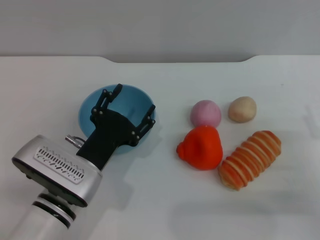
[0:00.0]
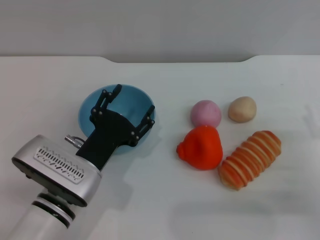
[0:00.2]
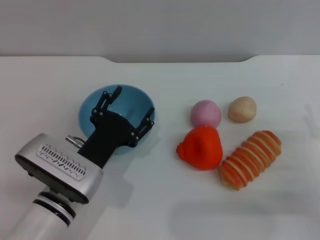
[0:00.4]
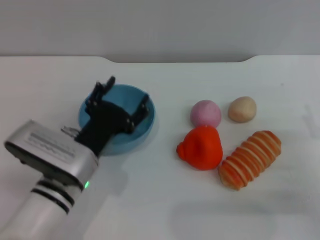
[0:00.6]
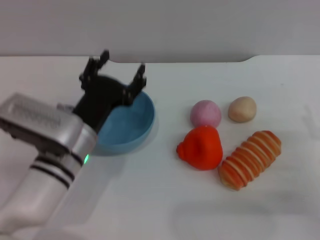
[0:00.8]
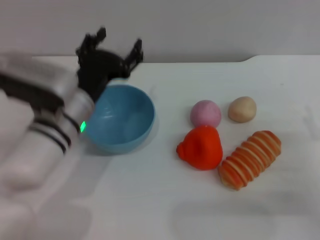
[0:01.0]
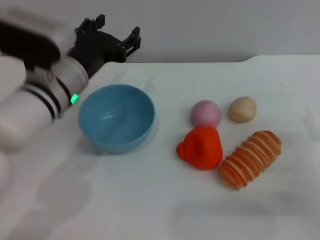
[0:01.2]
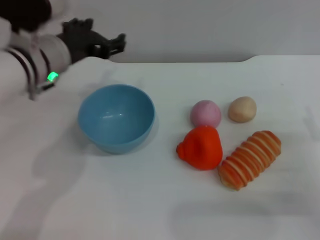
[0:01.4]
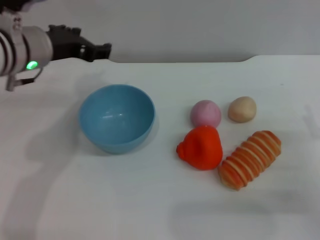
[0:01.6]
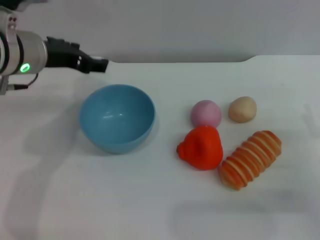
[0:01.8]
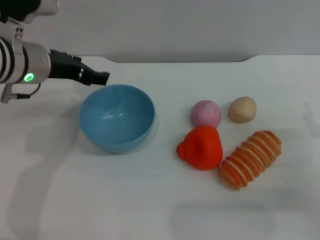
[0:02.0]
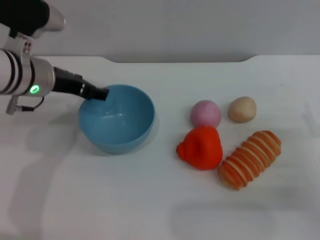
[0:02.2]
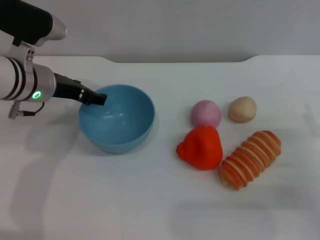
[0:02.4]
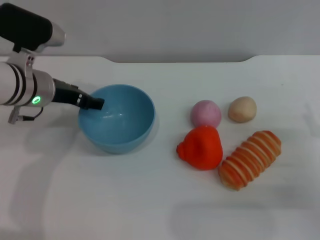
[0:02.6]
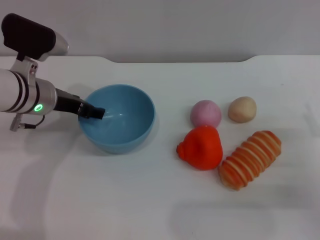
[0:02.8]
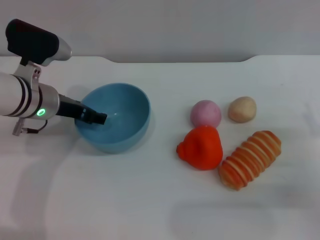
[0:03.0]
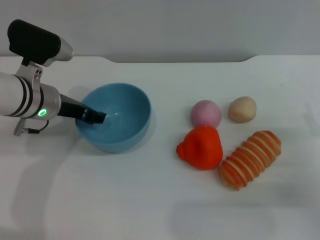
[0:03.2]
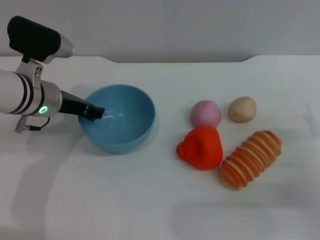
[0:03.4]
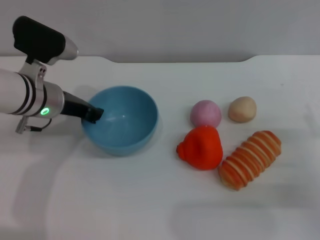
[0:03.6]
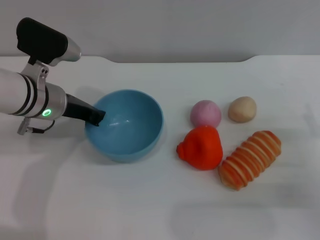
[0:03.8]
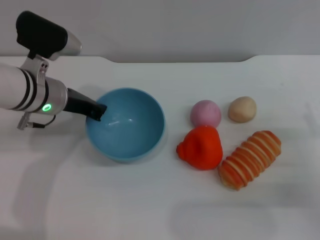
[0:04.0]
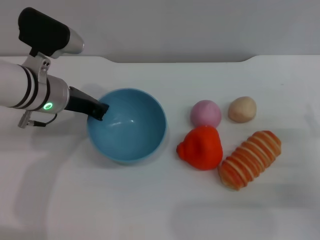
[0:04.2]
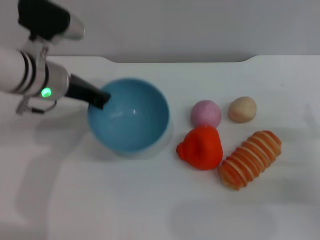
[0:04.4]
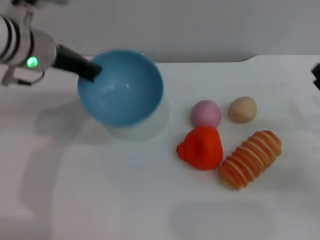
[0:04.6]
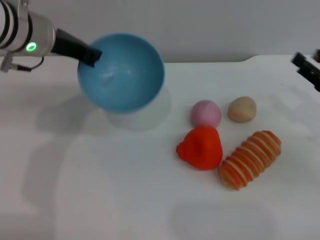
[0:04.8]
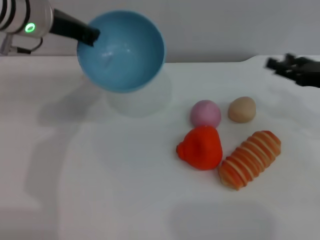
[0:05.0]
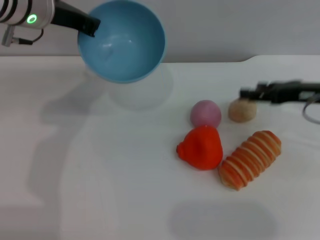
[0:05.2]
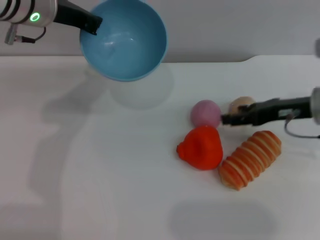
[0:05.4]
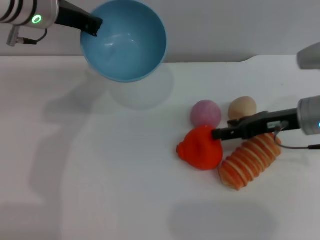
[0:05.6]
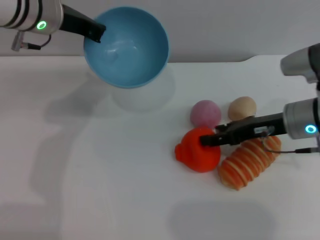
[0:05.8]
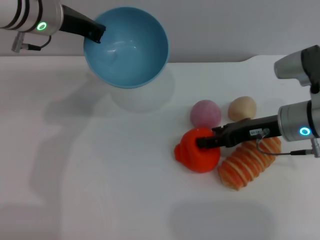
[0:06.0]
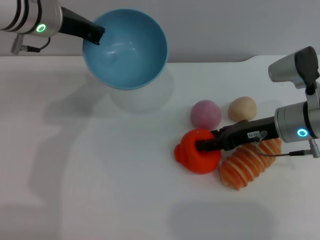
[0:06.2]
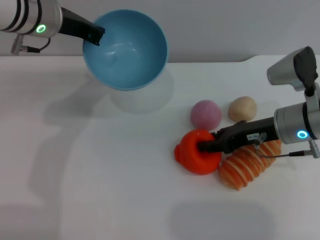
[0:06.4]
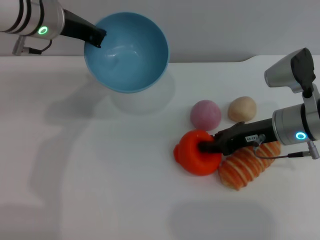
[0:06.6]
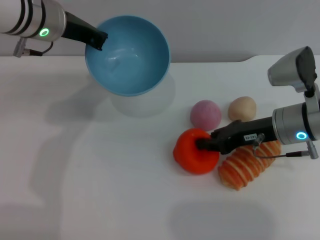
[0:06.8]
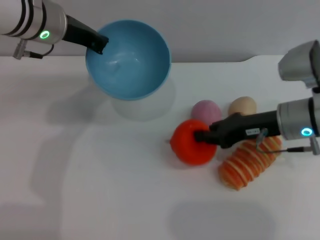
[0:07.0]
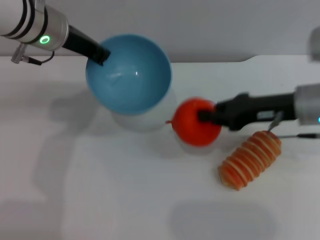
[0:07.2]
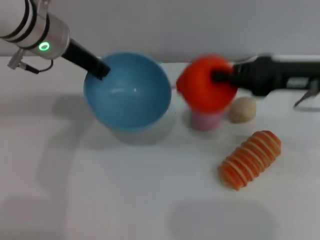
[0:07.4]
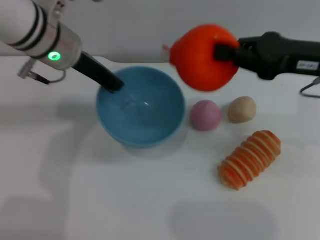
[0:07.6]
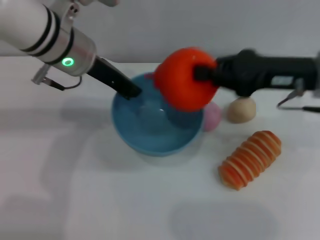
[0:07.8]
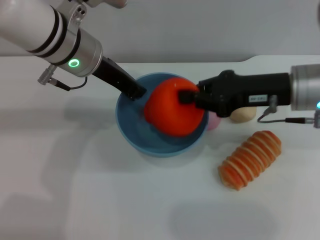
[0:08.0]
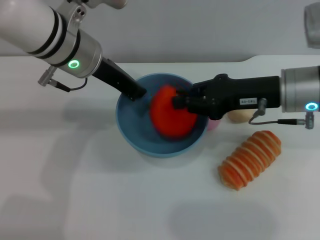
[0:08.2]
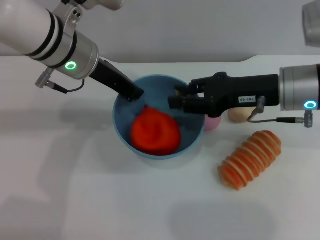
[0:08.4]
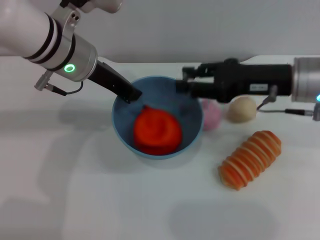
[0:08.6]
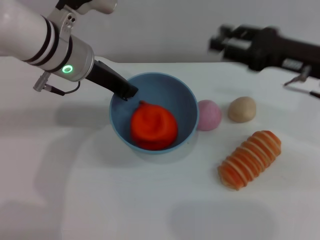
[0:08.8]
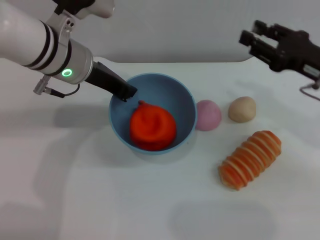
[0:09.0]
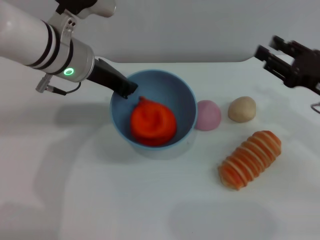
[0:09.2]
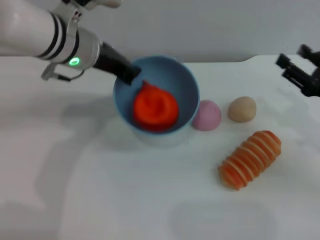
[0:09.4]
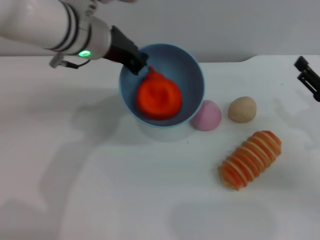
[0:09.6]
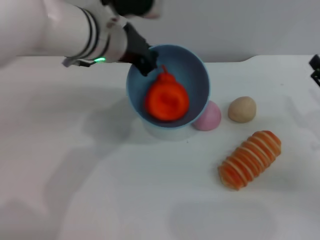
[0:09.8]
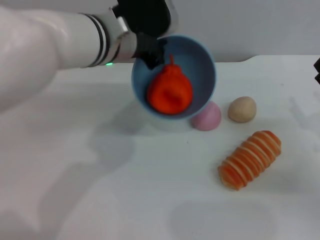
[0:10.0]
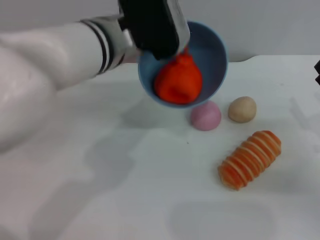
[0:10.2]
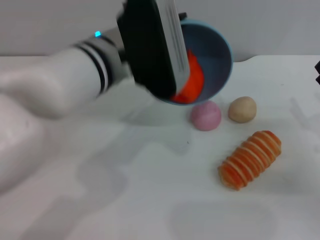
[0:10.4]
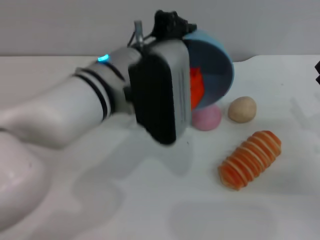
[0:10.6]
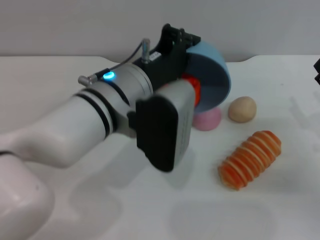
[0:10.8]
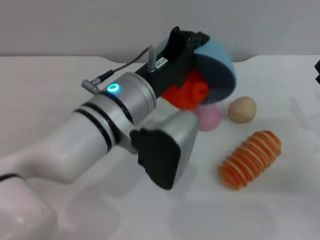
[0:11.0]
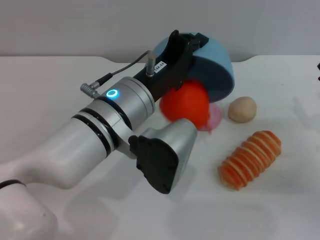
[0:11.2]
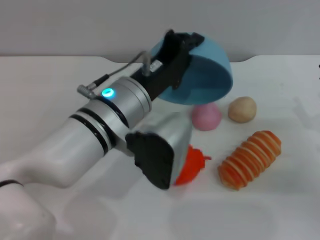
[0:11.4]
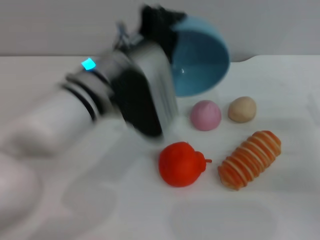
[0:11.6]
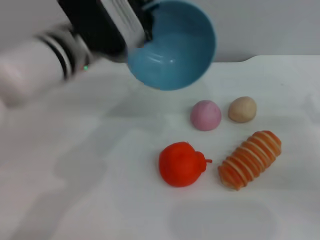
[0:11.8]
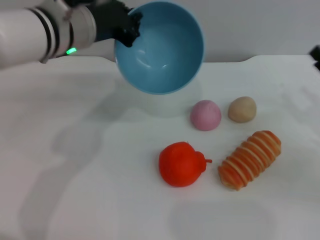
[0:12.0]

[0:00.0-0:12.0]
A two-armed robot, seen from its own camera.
Task of the whole recording: put the orange into the blue bowl and pour it out repeatedly.
Step, 0:00.0 to 0:04.6: Pick up the bowl with the left gripper.
Step, 0:04.8 to 0:06.8: Pick up the orange with the right gripper.
Step, 0:07.0 to 0:08.6: Place the orange into the bowl.
Step, 0:08.8 to 0:11.8: Pour the orange out of the bowl.
0:00.0 to 0:01.6: The left gripper moves upward and forward, some 20 cm.
0:01.6 to 0:03.0: The left gripper shifts approximately 10 cm downward.
0:03.0 to 0:04.4: The left gripper closes up.
0:04.4 to 0:06.0: The right gripper is displaced forward, to the left and upward by roughly 15 cm, while the left gripper moves upward, some 5 cm.
0:06.0 to 0:07.6: The right gripper heads upward, covering approximately 10 cm, and closes its fingers.
0:07.6 to 0:09.0: The right gripper is displaced downward by roughly 5 cm, goes to the left and returns, some 5 cm each way, and opens its fingers.
0:09.0 to 0:10.4: The left gripper is displaced to the right and backward by about 10 cm, while the right gripper goes roughly 10 cm downward, backward and to the right, and opens up.
0:10.4 to 0:12.0: The left gripper travels to the left by roughly 5 cm.

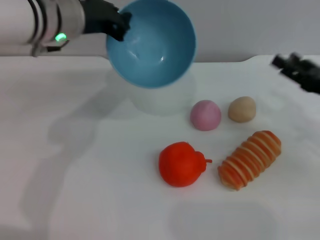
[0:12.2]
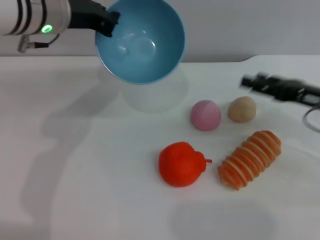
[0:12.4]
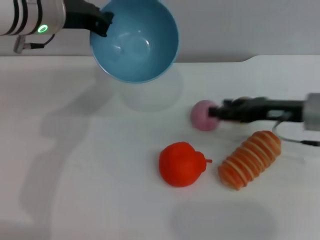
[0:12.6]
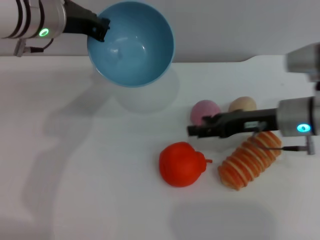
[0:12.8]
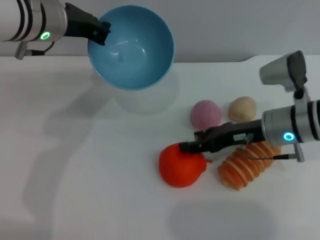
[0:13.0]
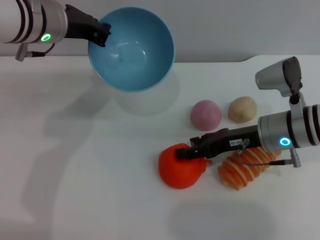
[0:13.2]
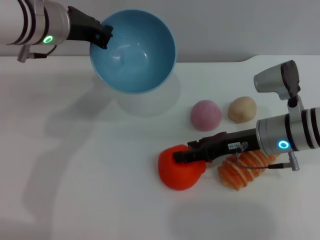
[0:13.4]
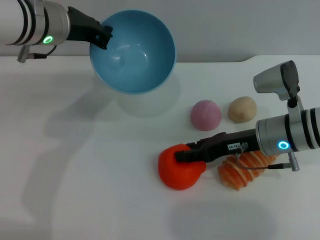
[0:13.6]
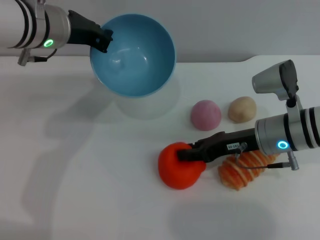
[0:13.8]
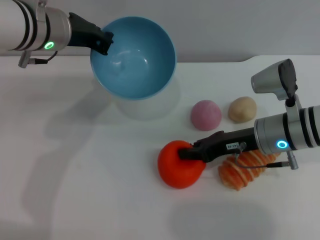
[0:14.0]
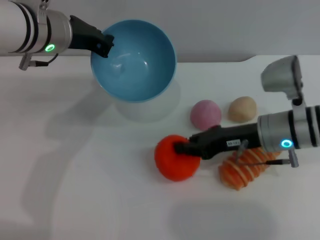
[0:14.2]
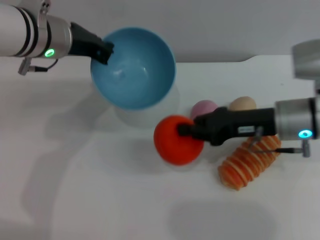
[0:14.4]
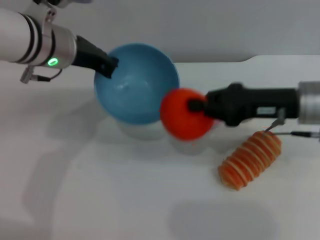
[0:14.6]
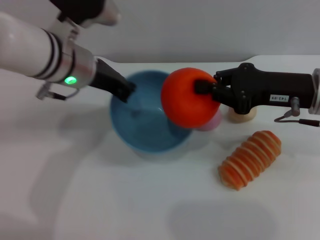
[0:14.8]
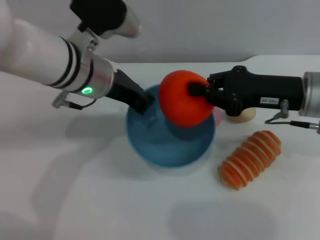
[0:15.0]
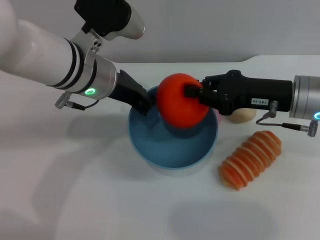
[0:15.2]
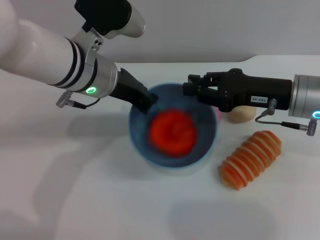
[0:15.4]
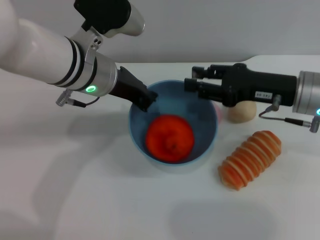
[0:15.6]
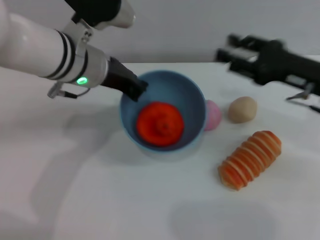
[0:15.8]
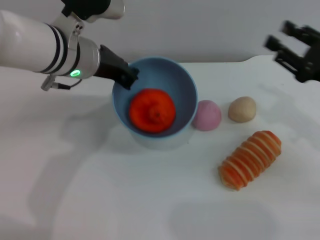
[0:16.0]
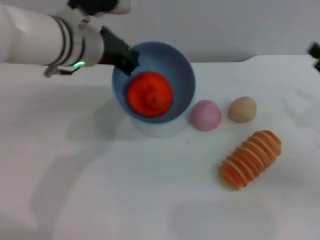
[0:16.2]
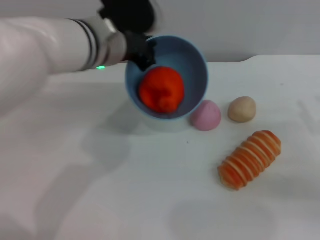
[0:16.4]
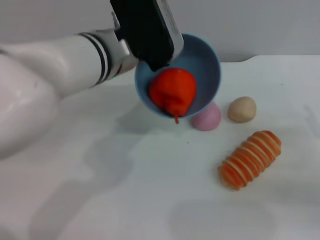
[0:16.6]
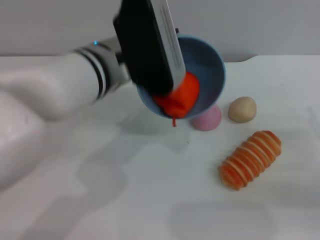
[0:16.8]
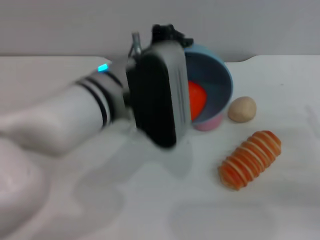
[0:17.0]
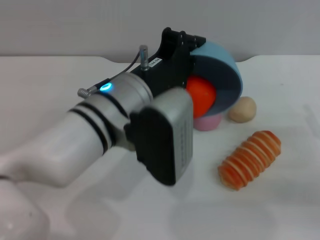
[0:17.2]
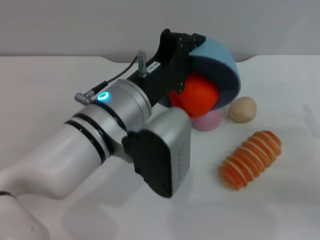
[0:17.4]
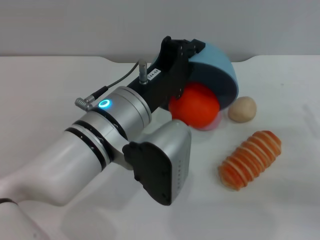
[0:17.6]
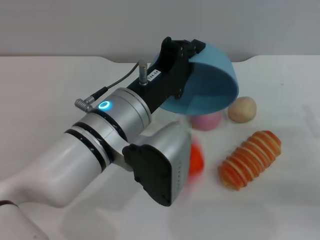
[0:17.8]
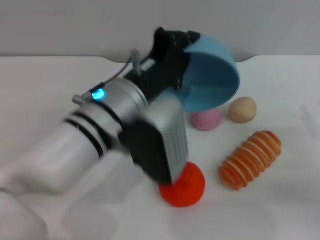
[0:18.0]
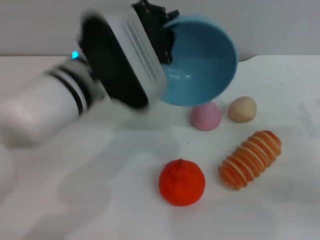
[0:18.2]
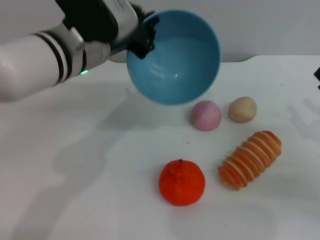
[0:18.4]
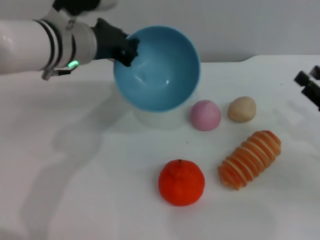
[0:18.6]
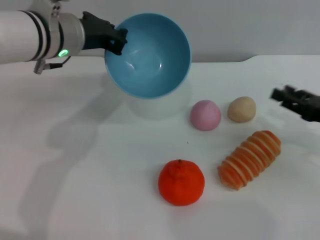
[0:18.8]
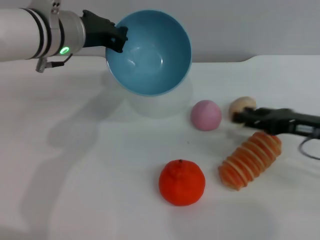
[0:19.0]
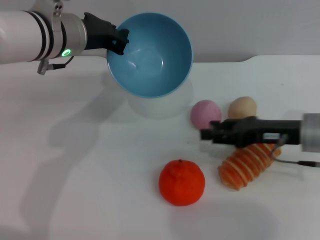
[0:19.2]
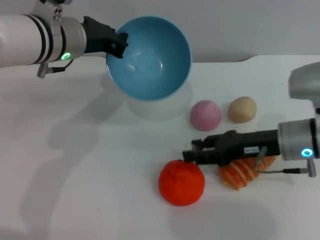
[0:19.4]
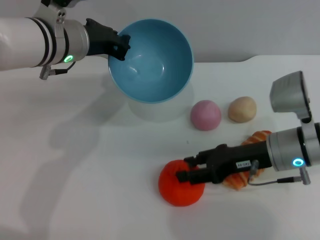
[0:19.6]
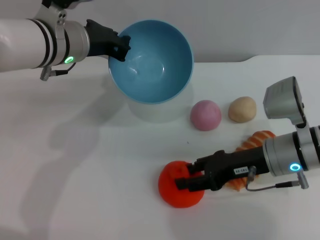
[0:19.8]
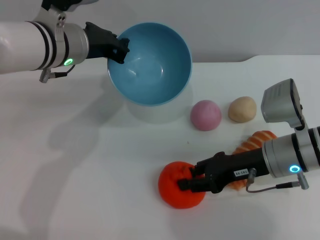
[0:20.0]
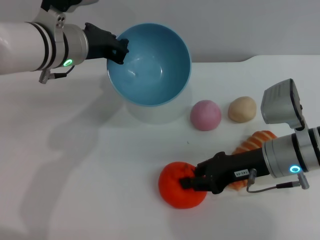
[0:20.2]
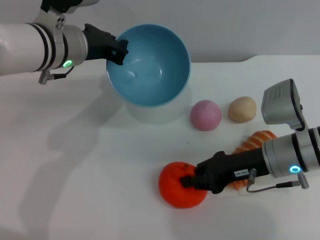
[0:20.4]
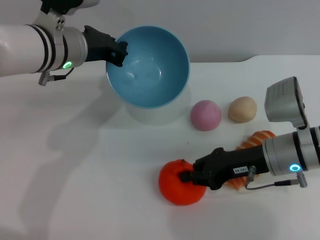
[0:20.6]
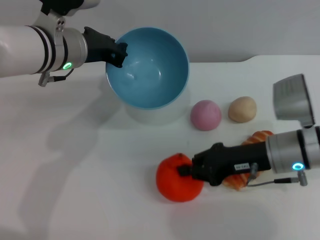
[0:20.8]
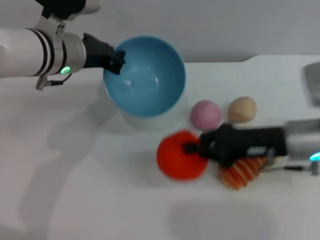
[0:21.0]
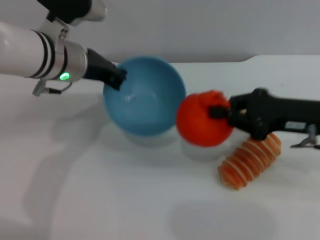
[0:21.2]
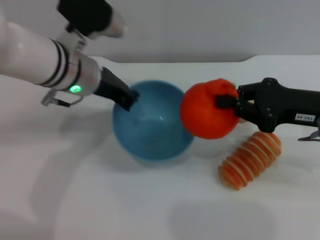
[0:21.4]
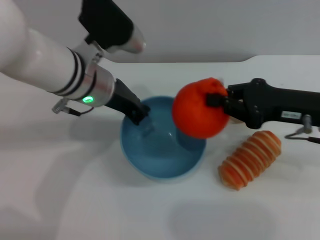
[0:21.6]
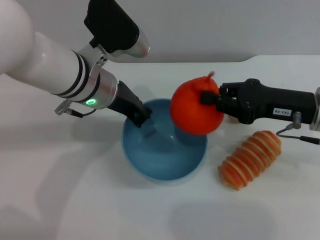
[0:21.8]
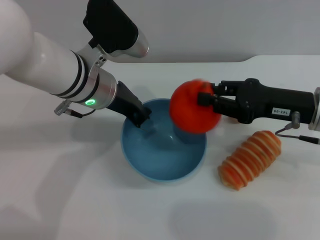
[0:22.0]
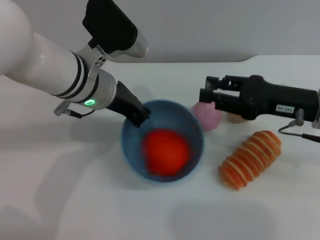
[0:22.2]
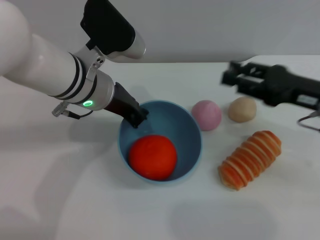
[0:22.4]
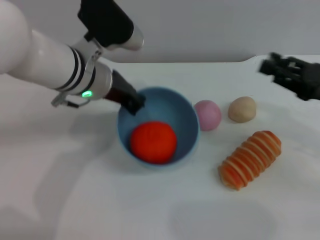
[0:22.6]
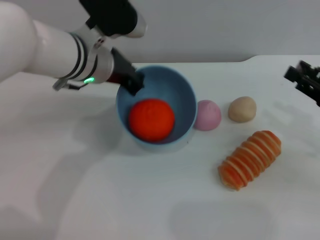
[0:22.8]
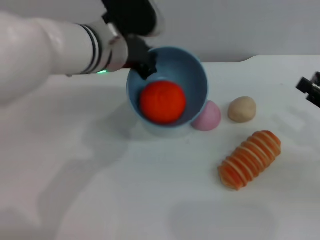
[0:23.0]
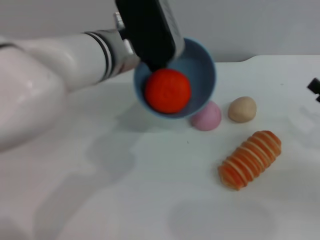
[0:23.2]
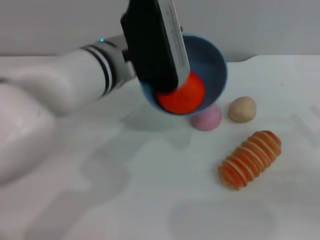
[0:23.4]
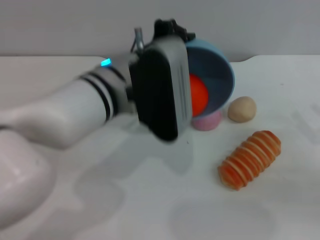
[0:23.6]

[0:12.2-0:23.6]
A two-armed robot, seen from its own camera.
Task of the whole recording: put the orange into the blue bowl and pour it out repeatedly.
Step, 0:12.2 to 0:14.4: Pick up the orange with the right gripper.
Step, 0:14.6 to 0:15.8: Place the orange into the bowl.
Step, 0:16.0 to 0:18.2: Pour the orange out of the bowl.
Step, 0:18.4 to 0:20.8: Pick up the orange with the right gripper.
Step, 0:21.0 to 0:22.4: Place the orange into the bowl.
0:12.2 to 0:13.6: The right gripper goes roughly 15 cm to the left.
0:13.6 to 0:15.0: The left gripper shifts roughly 5 cm to the right, while the right gripper is displaced upward by some 10 cm, and closes up.
0:15.0 to 0:16.4: The right gripper shifts some 15 cm to the right, downward and backward, and opens up.
0:16.4 to 0:17.8: The left gripper goes approximately 10 cm backward.
0:17.8 to 0:19.4: The left gripper is displaced forward and to the left by roughly 15 cm; the right gripper travels to the left and forward by approximately 15 cm.
0:19.4 to 0:20.8: The right gripper closes up.
0:20.8 to 0:22.2: The right gripper shifts approximately 5 cm upward.
0:22.2 to 0:23.6: The left gripper goes about 5 cm backward, while the right gripper goes some 15 cm to the right, backward and downward, and opens its fingers.
